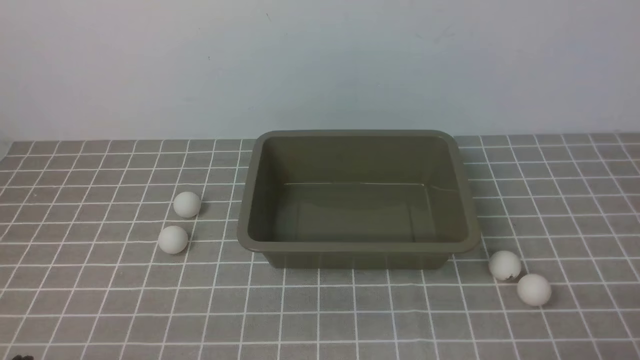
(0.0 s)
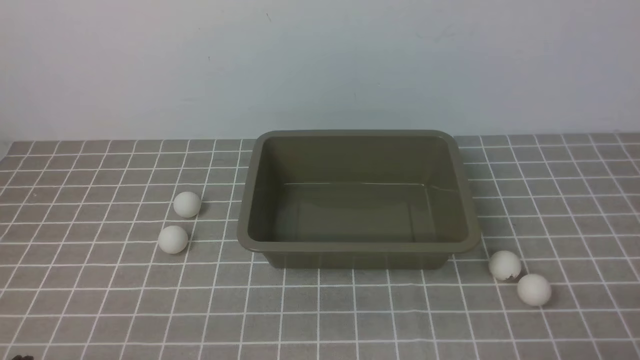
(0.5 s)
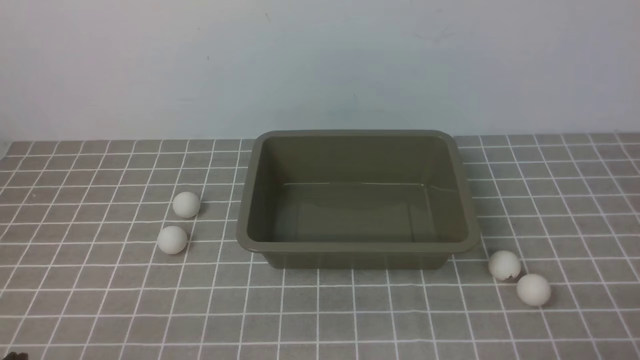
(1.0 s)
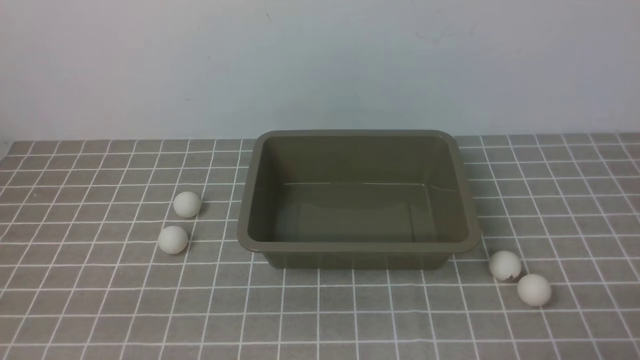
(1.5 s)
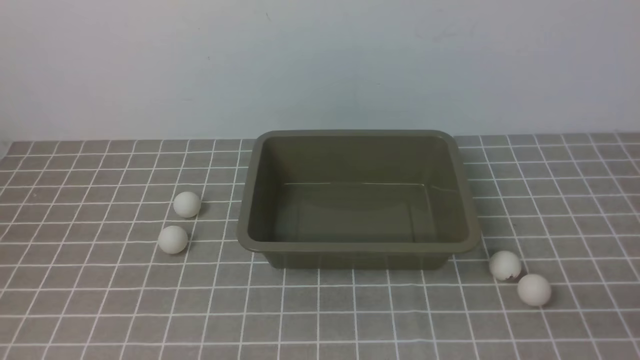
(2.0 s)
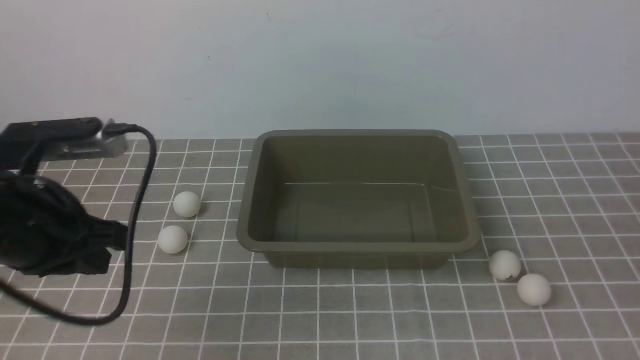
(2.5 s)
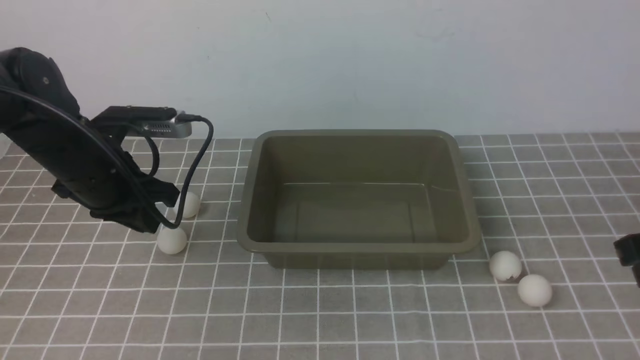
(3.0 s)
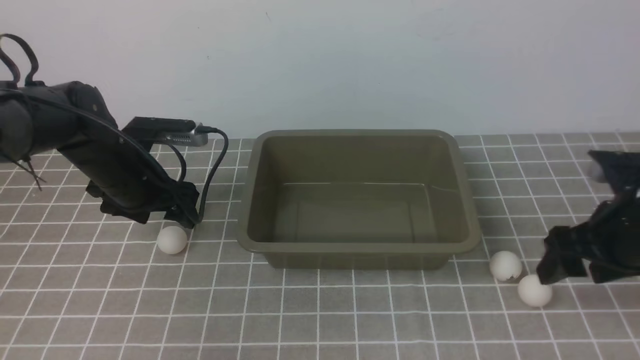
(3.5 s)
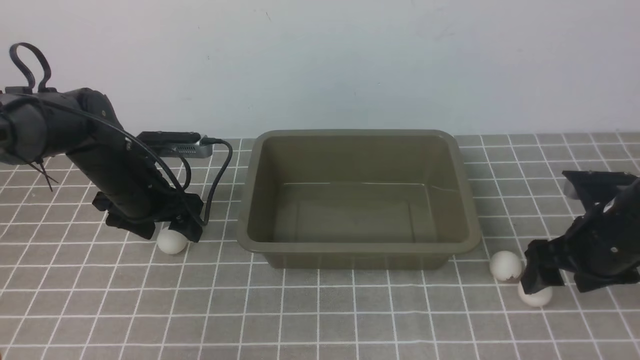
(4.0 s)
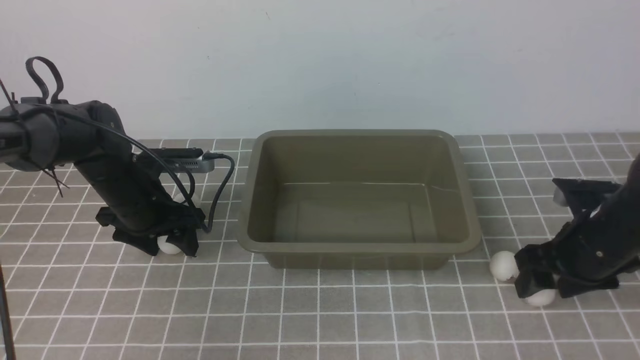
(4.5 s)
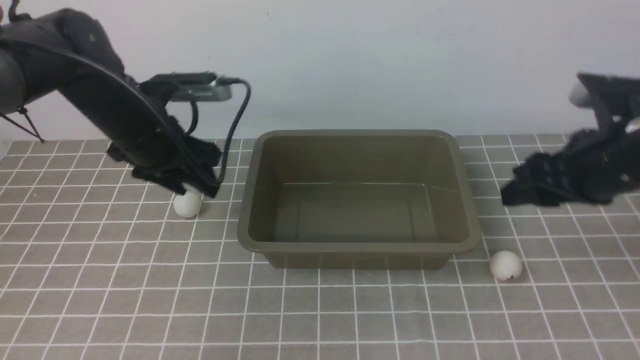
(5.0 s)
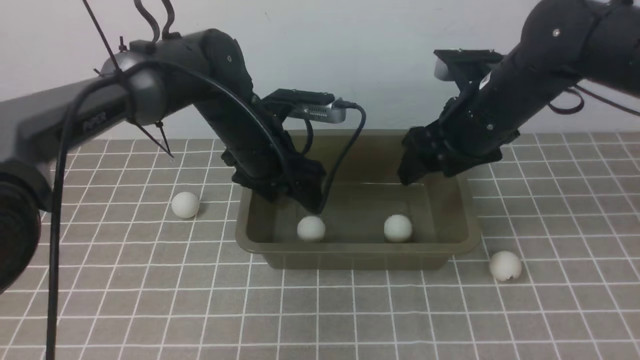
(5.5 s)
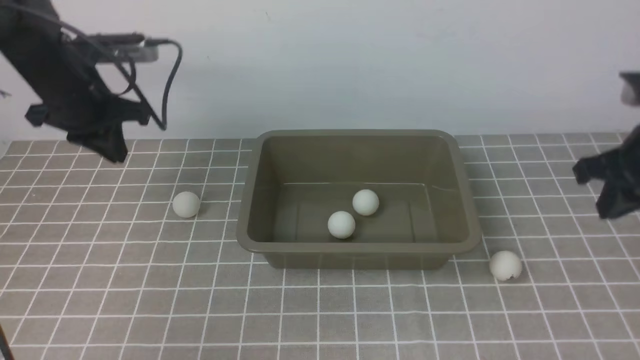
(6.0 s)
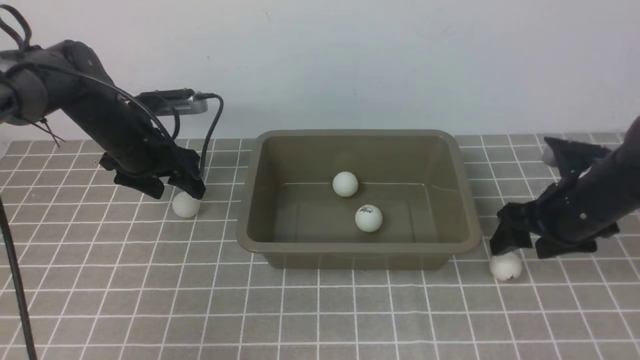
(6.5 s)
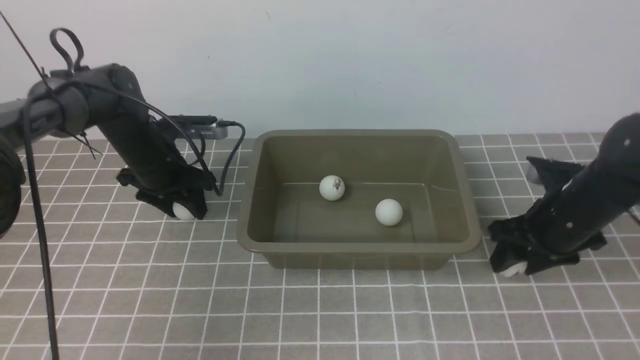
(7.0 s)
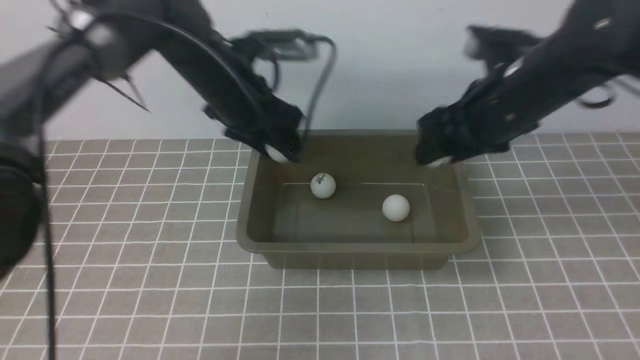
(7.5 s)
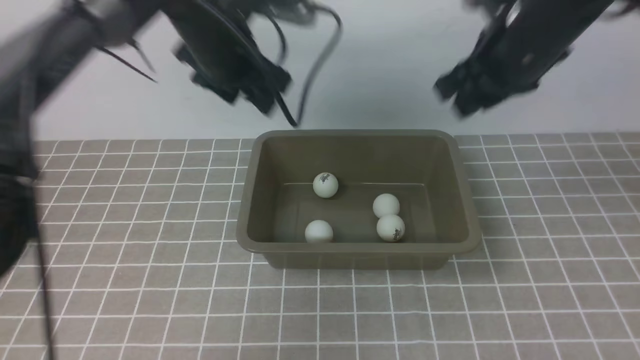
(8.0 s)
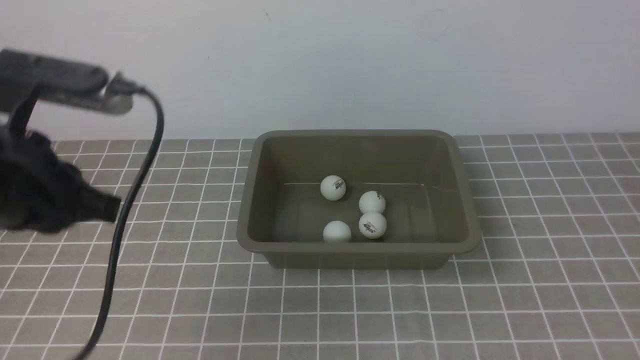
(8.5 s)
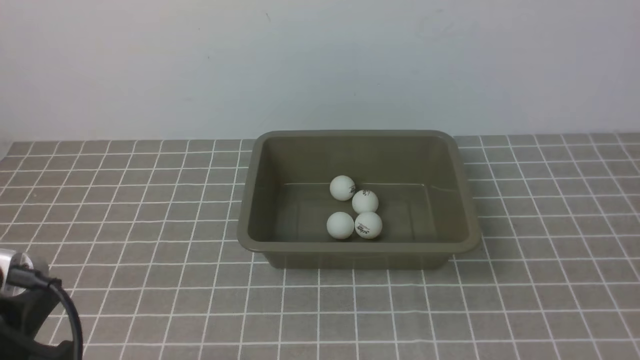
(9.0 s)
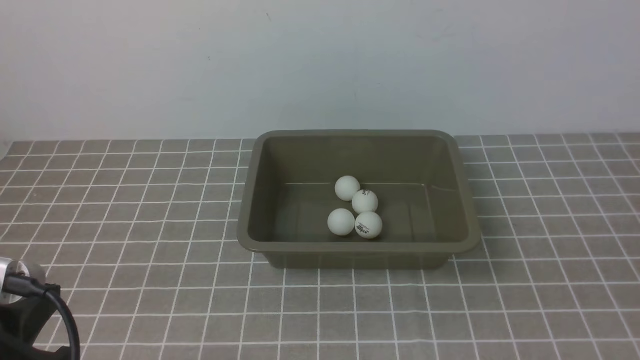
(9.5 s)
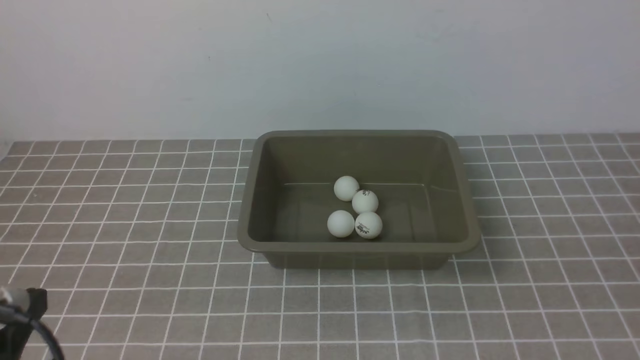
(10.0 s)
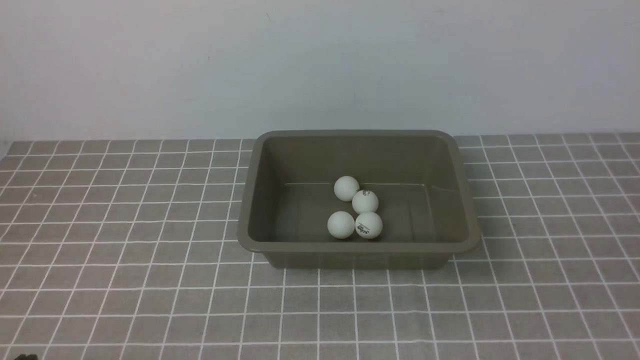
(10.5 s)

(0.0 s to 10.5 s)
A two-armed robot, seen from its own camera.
Step, 0.0 s - 4.5 s: use the left arm to clamp the table tennis ball closest to it.
Step, 5.0 s - 5.5 s: use the left arm to put the table tennis ball into the box.
Step, 6.0 s - 7.0 s: use the left arm to clamp the table tennis ball closest to it.
2.0 s - 4.0 s: The right gripper goes about 25 cm forward, and opens; the left gripper travels forward and downward by approximately 35 cm, and opens its fingers.
4.0 s - 6.5 s: The left gripper travels forward by about 5 cm, goes to the right and returns, about 15 cm each way, and closes and opens again; the right gripper travels upward and back again, roughly 10 cm each way, and closes, then opens again.
6.5 s - 8.5 s: The two grippers go approximately 30 cm backward and upward. The right gripper closes up. Meanwhile the left gripper closes.
8.5 s - 10.5 s: The right gripper heads downward and backward, covering about 10 cm; the left gripper heads downward and backward, covering about 25 cm.

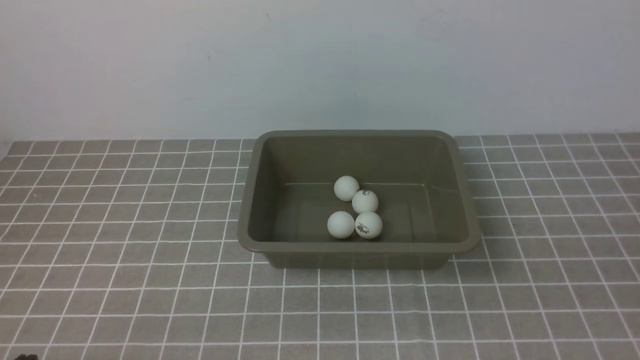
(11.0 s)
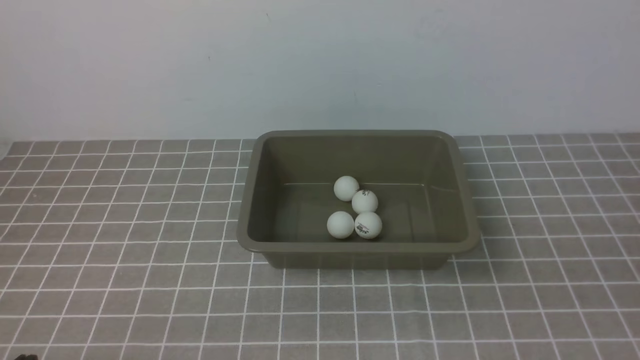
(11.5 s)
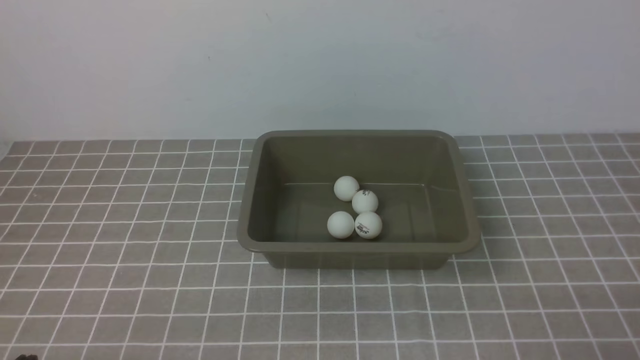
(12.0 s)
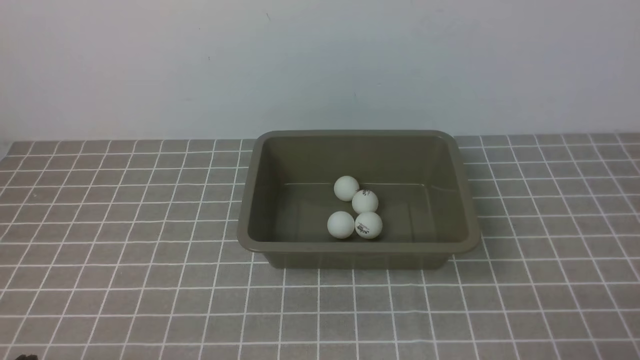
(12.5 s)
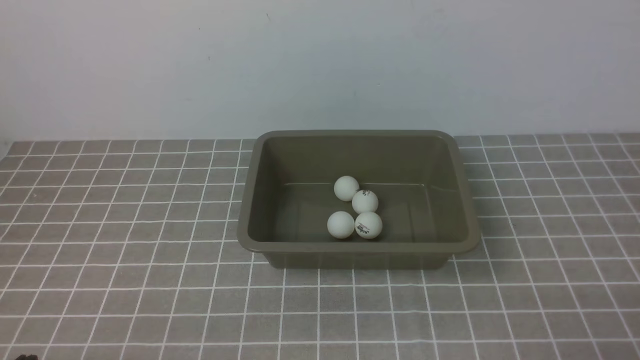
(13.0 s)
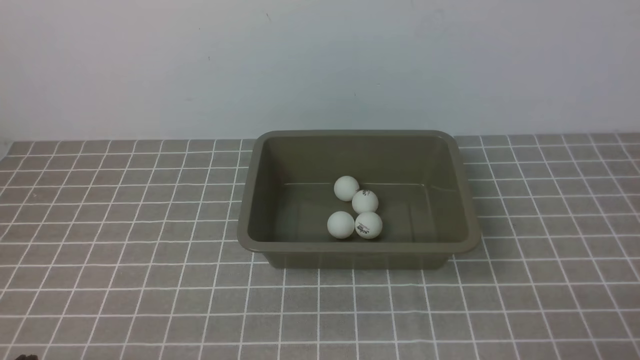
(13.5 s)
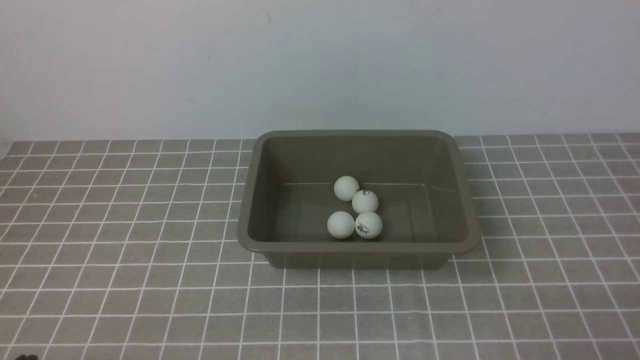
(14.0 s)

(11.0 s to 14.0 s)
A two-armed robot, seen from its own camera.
12.5 s - 14.0 s: Both grippers stay about where they are.
